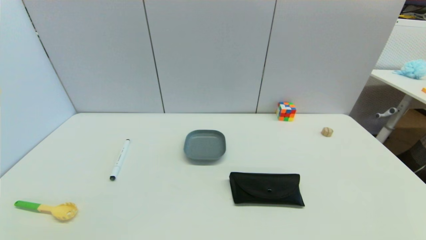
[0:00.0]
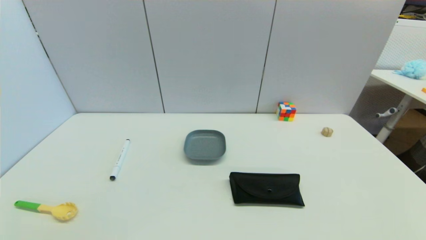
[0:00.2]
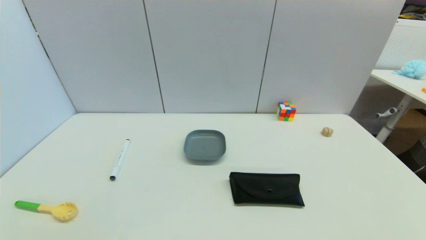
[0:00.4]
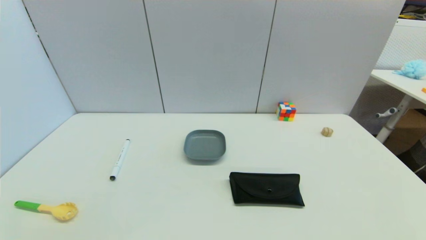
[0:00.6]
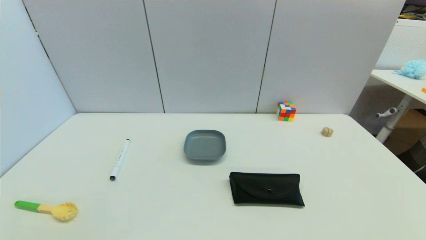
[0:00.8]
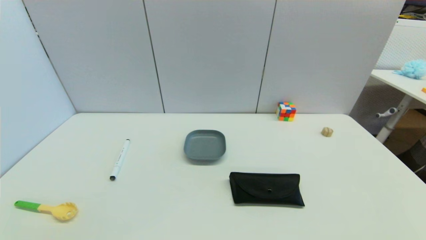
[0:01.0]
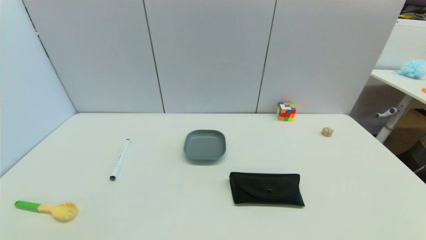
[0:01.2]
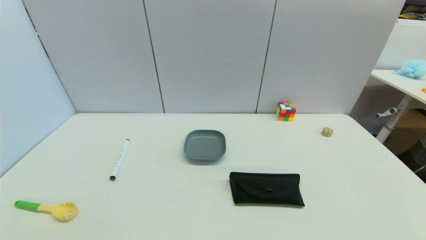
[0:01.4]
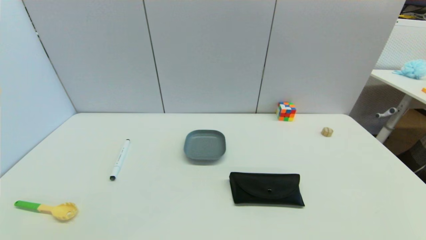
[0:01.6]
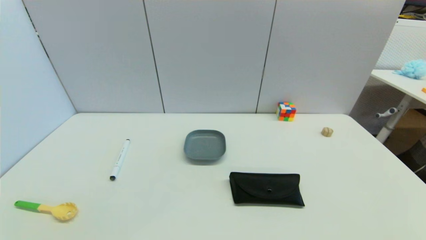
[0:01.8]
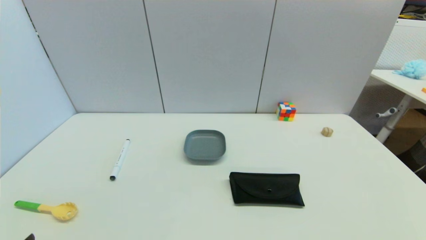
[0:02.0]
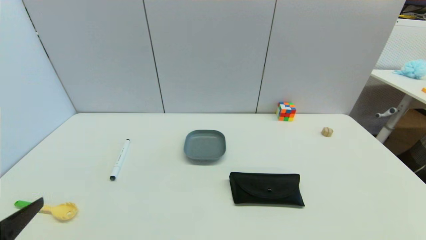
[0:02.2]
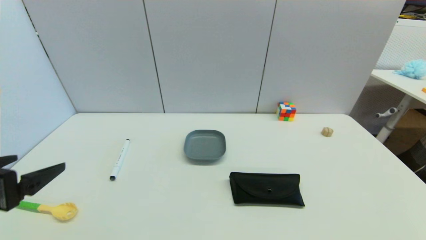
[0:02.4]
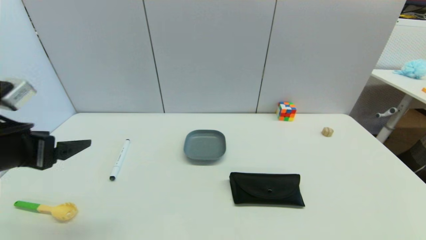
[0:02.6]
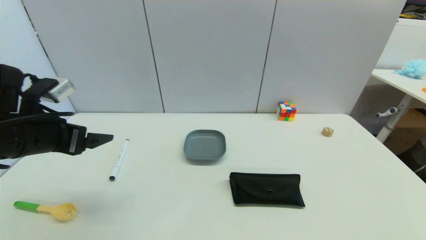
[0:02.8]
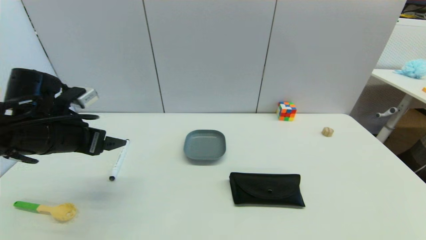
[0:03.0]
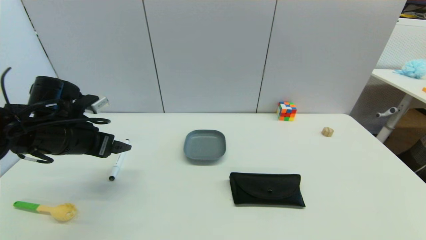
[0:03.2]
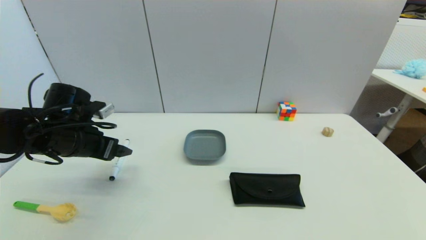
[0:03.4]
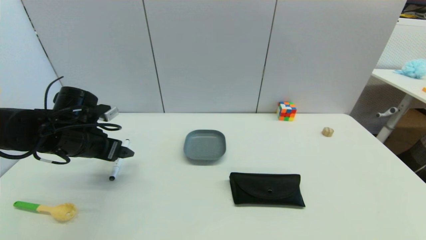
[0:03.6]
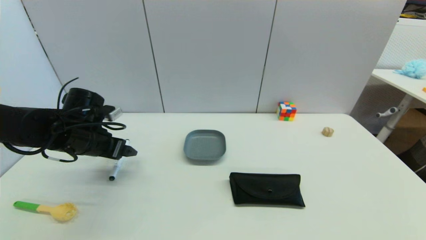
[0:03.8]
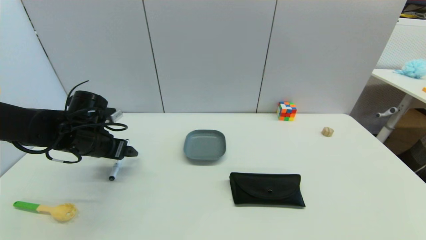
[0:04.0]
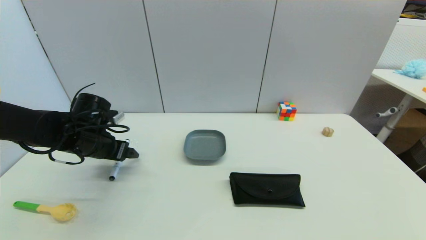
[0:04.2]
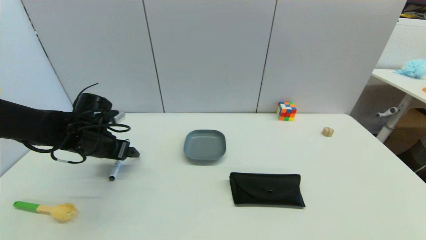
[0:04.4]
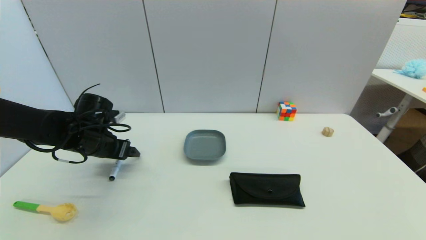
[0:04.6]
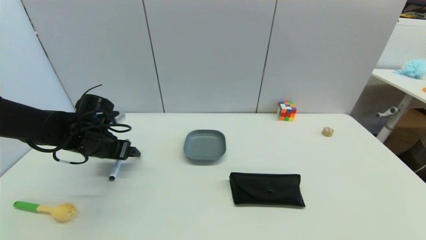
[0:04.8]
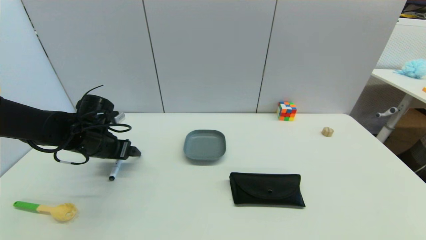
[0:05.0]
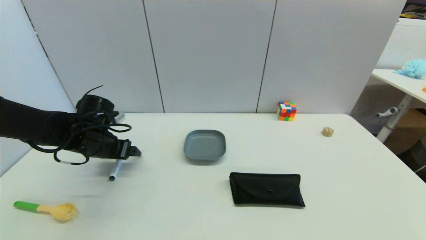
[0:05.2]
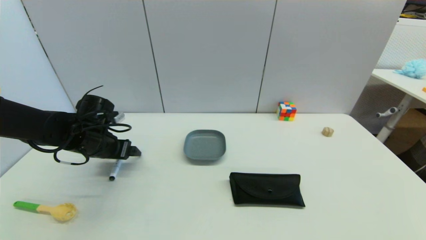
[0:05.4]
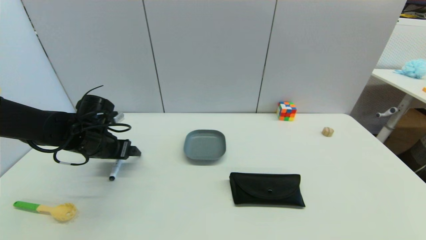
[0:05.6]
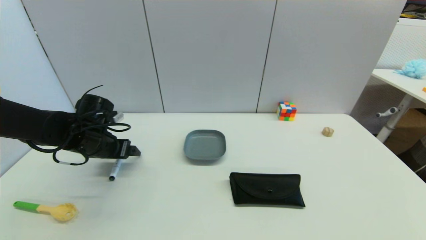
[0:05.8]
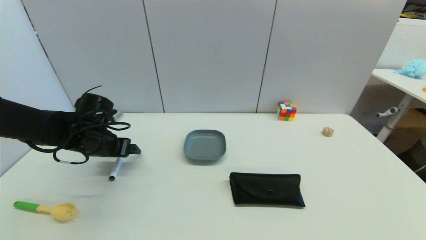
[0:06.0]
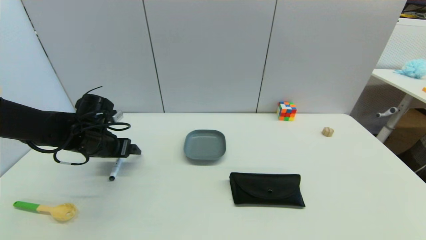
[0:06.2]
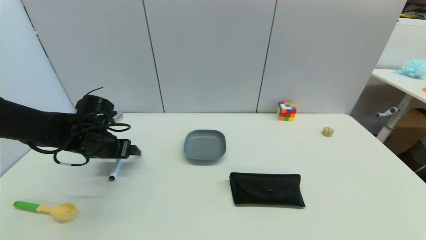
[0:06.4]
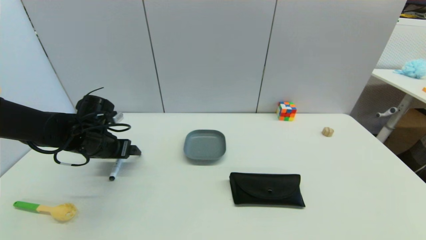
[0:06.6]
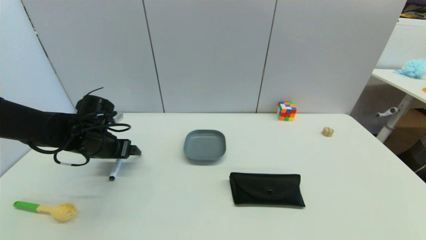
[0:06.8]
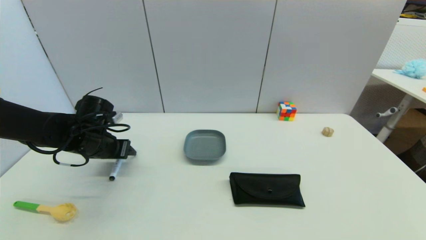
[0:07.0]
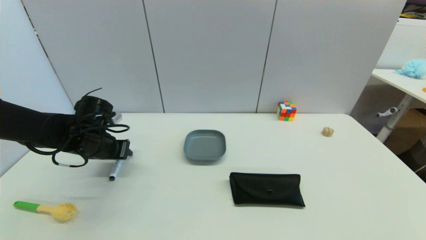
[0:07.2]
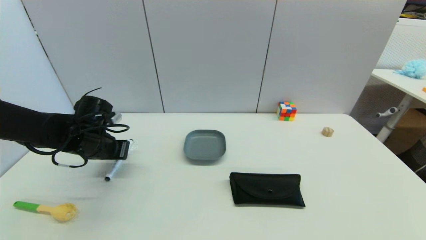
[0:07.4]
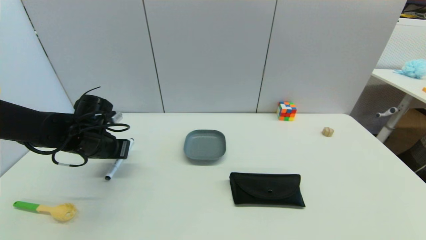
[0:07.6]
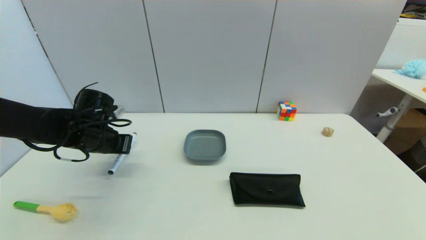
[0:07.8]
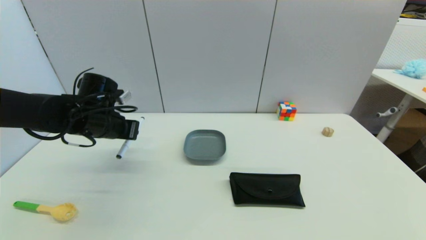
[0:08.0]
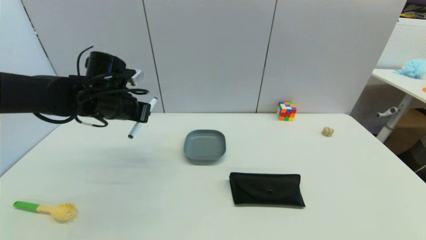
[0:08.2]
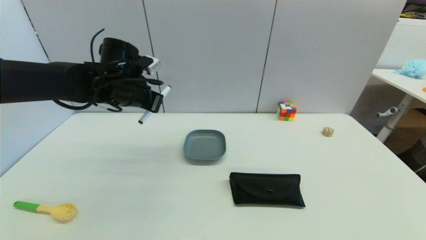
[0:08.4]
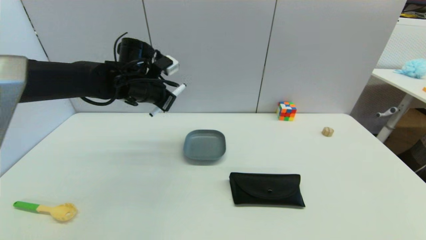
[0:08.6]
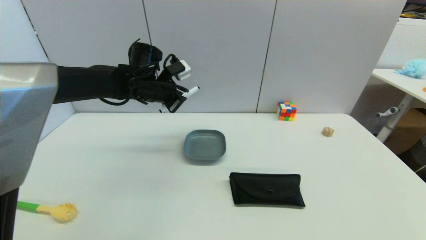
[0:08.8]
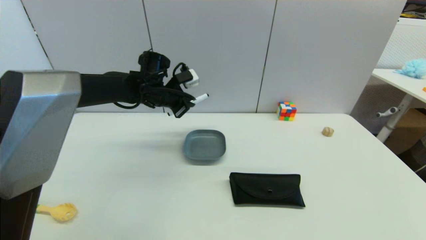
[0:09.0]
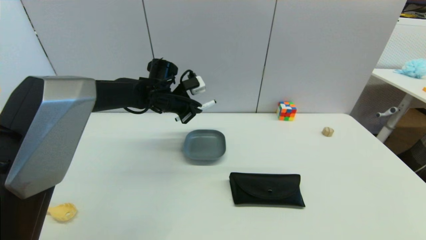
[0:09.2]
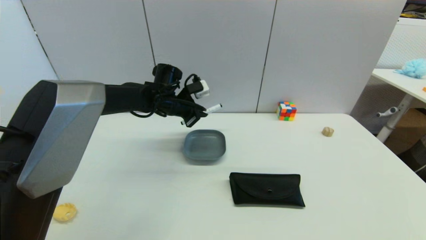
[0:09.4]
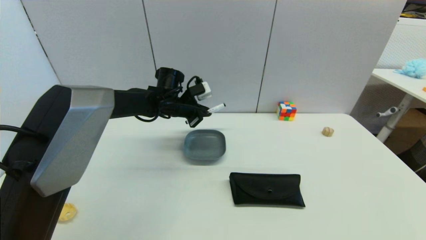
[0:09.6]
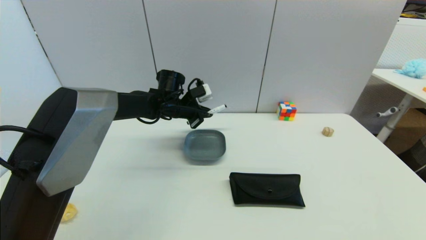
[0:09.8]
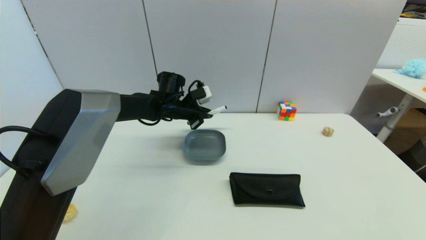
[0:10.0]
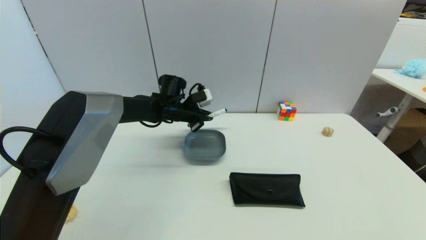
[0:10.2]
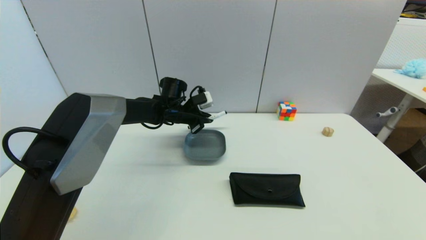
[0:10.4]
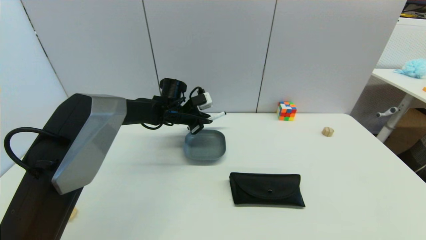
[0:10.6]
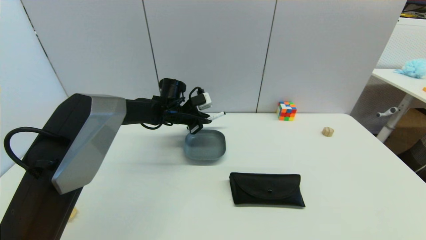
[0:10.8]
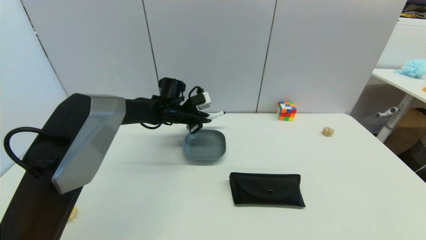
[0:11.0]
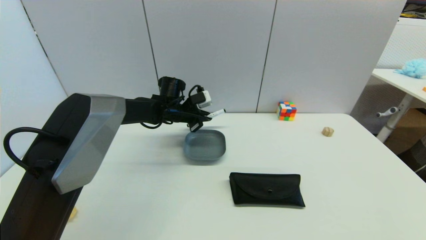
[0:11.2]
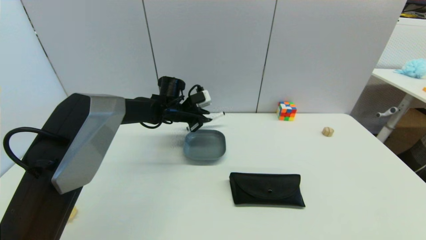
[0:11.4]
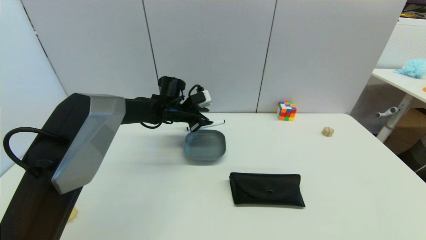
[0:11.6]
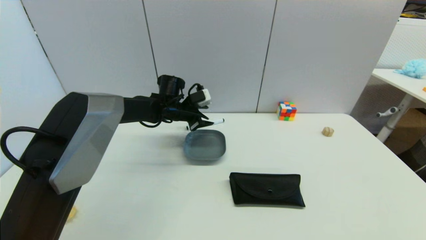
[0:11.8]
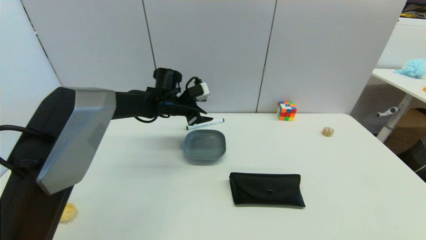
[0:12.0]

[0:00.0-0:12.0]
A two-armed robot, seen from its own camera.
Task of the whole recording: put the black marker in the designated position.
Step, 0:02.0 to 0:07.6: Grasp the Marker pen with left gripper.
Step, 0:07.8 to 0:11.8: Place the Marker pen on the table with left gripper.
0:00.0 to 0:01.6: Neither gripper changes place.
0:01.6 to 0:03.0: The left gripper heads forward and upward, covering approximately 30 cm.
0:03.0 to 0:04.4: The left gripper goes about 10 cm forward and downward.
0:04.4 to 0:06.0: The grippers make only small movements.
0:06.0 to 0:07.6: The left gripper closes.
0:07.6 to 0:09.0: The left gripper moves to the right, forward and upward, some 20 cm.
0:09.0 to 0:10.4: The left gripper is displaced downward by about 5 cm.
0:10.4 to 0:12.0: The left gripper opens.

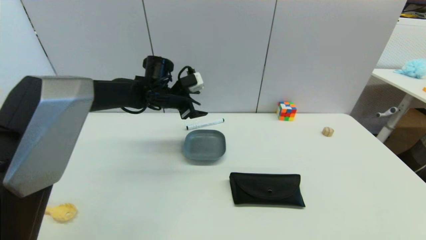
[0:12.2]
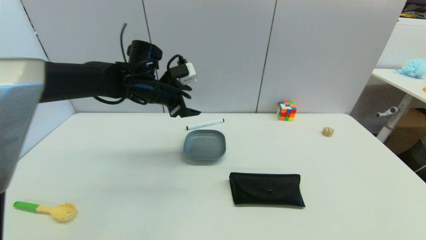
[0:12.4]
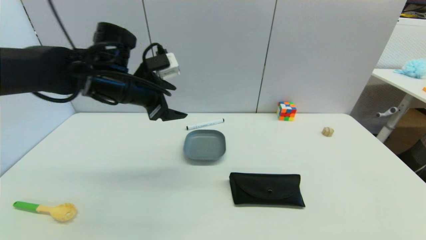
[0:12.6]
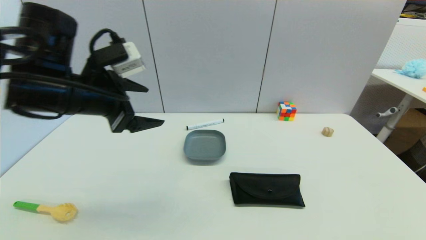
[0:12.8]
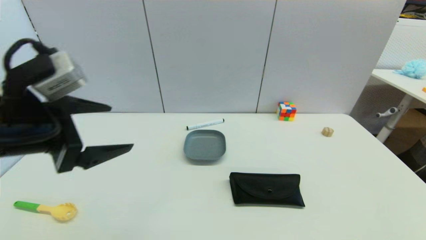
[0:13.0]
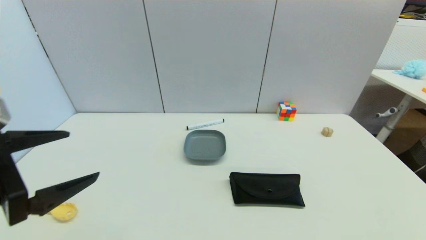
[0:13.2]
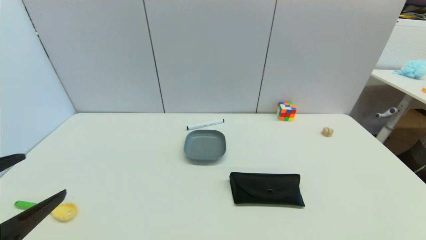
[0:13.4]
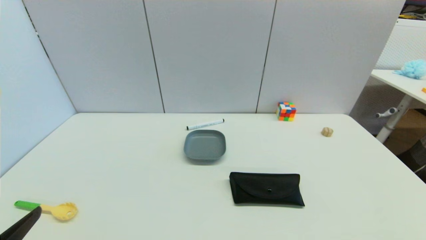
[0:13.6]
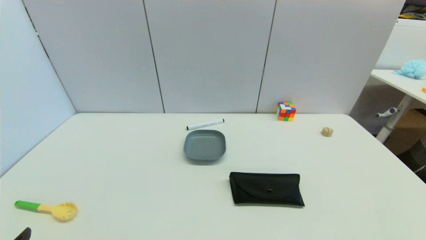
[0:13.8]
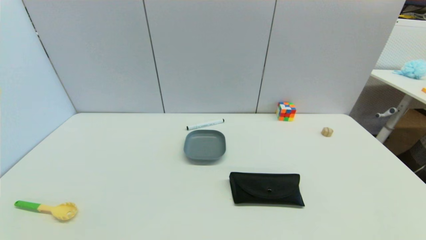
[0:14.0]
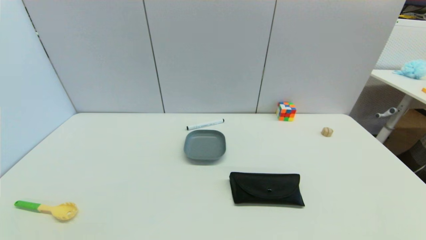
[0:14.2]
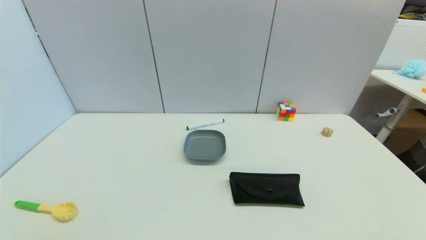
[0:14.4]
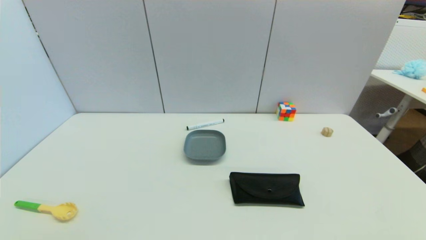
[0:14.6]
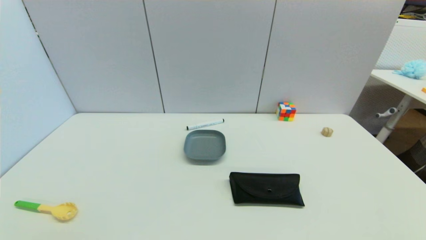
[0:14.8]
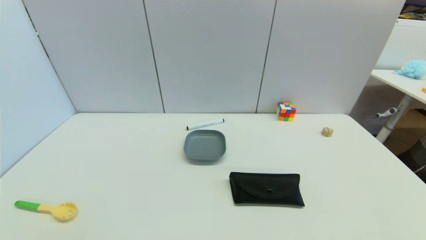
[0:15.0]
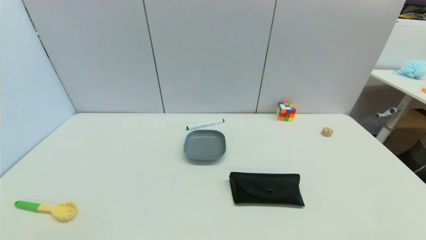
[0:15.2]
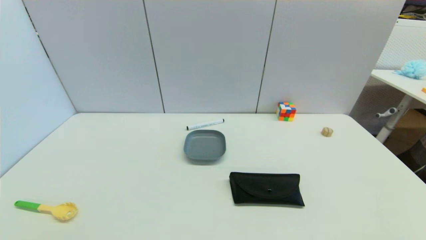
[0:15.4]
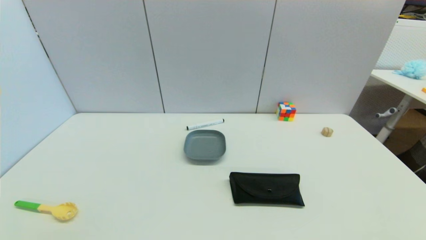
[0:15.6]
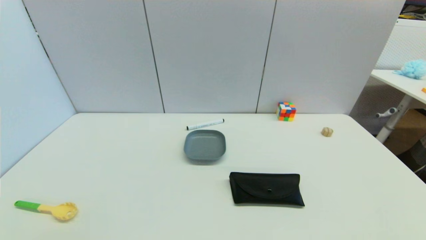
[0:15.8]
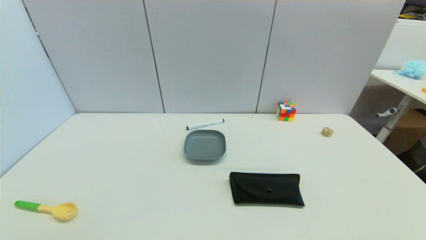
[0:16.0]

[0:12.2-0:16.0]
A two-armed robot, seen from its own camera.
Task of the whole recording: put the black marker in the designated position.
0:12.2 to 0:13.4: The left gripper moves backward and to the left, some 40 cm.
0:13.4 to 0:14.8: The left gripper goes about 15 cm downward and backward.
0:14.8 to 0:16.0: The two grippers keep their place.
